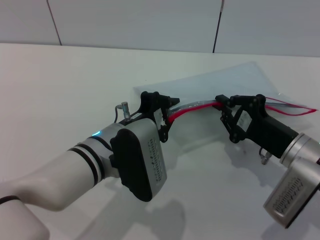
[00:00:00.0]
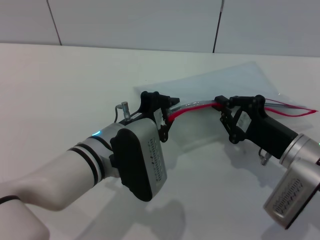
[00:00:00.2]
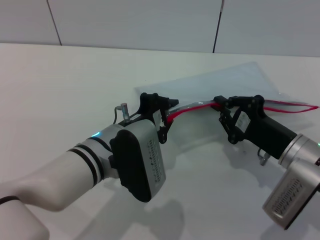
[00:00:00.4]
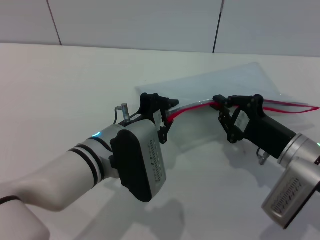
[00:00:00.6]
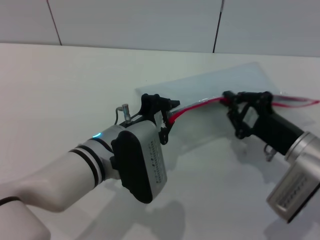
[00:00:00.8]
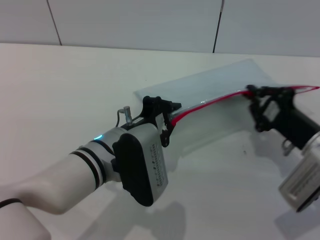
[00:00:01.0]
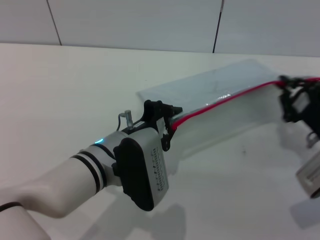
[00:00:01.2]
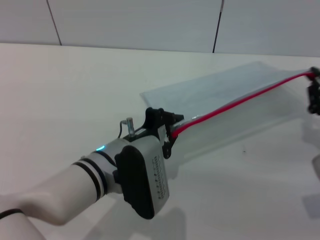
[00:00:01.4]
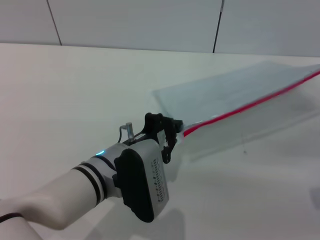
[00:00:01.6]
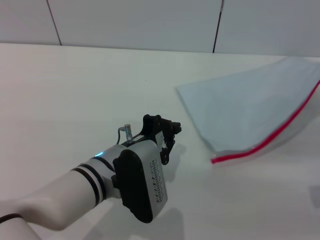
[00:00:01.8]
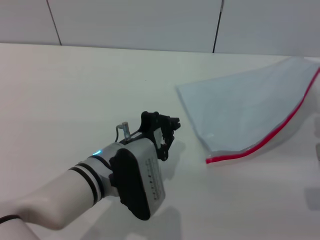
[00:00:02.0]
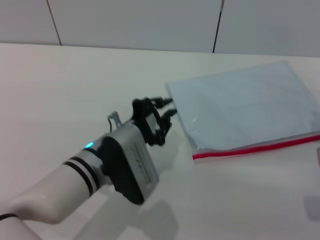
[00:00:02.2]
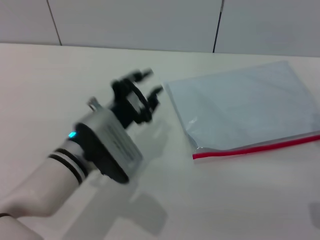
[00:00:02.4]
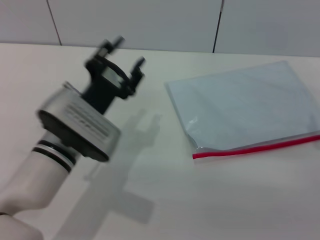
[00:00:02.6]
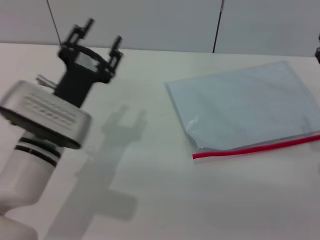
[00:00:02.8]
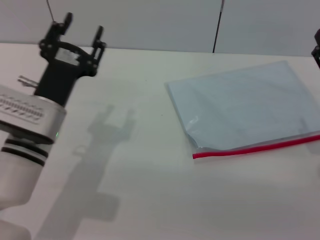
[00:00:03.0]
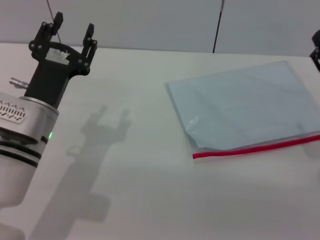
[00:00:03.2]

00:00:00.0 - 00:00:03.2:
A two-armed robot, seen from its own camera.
Step, 00:00:00.0 - 00:00:02.4: Pulling up the zipper on the transparent plastic bag with the right gripper to close it.
Step, 00:00:02.6 - 00:00:02.8: Place the transparent plastic bag.
00:00:00.0 - 00:00:01.6: The right gripper moves to the right, some 10 cm.
00:00:01.6 - 00:00:03.2: The left gripper travels to the left by about 10 cm, and opens, while the right gripper shifts by about 5 cm, and opens.
